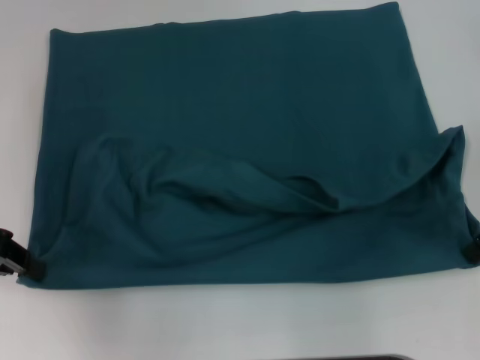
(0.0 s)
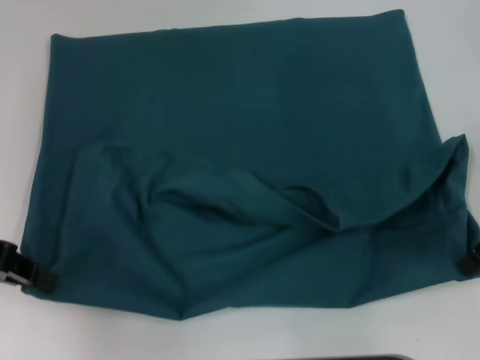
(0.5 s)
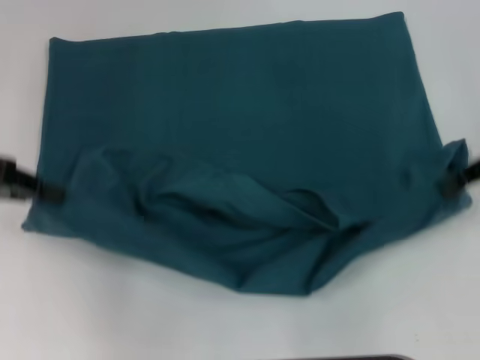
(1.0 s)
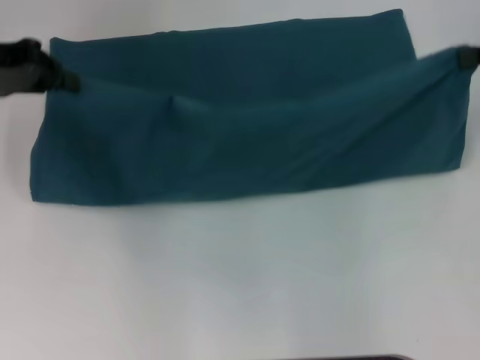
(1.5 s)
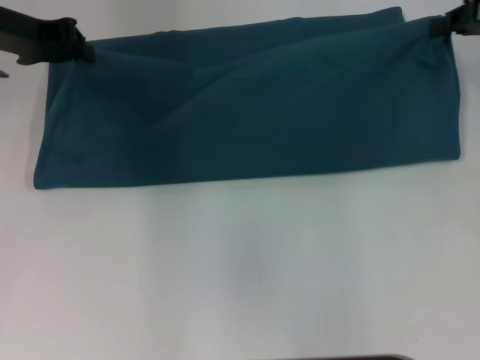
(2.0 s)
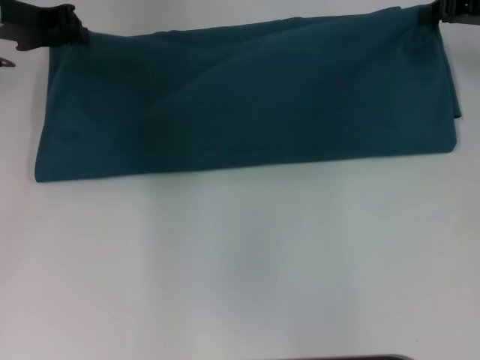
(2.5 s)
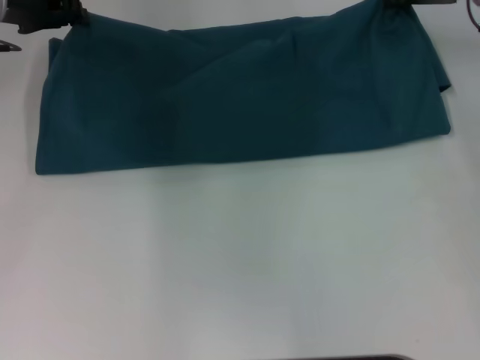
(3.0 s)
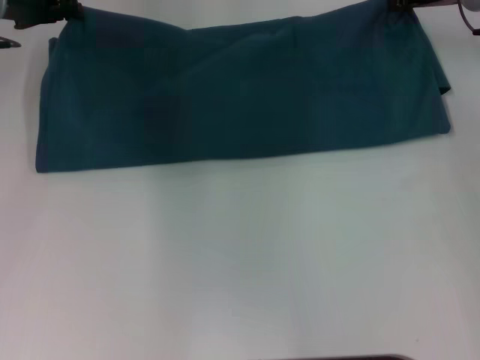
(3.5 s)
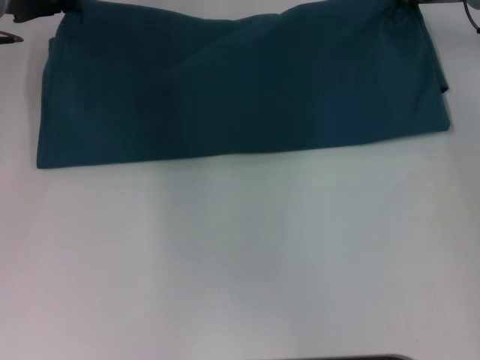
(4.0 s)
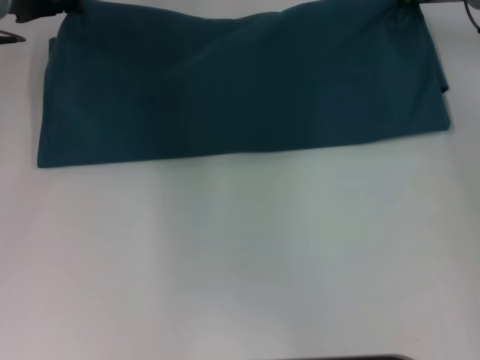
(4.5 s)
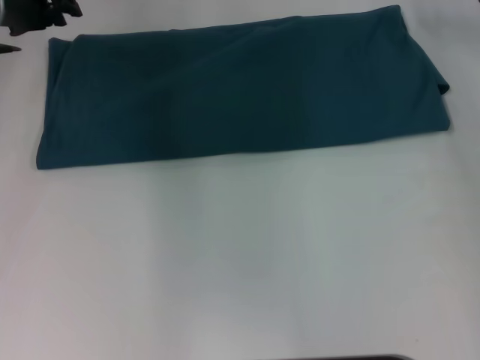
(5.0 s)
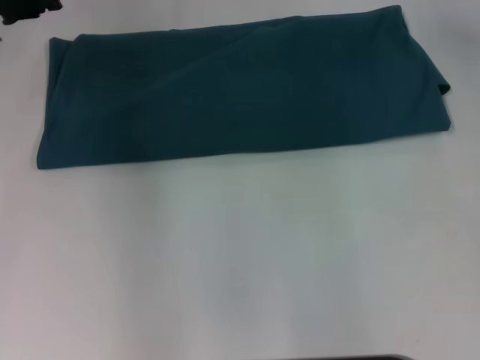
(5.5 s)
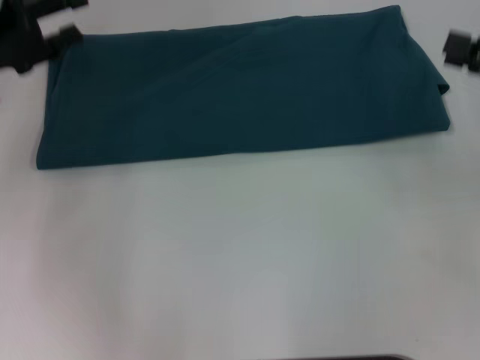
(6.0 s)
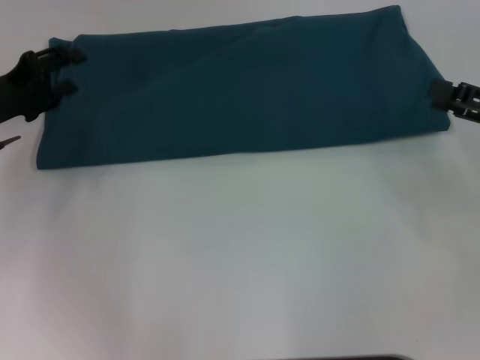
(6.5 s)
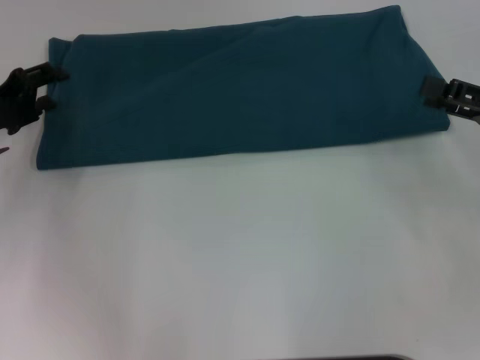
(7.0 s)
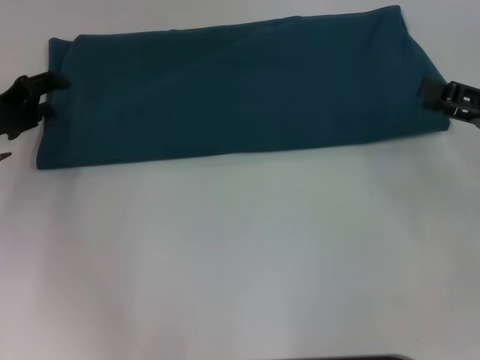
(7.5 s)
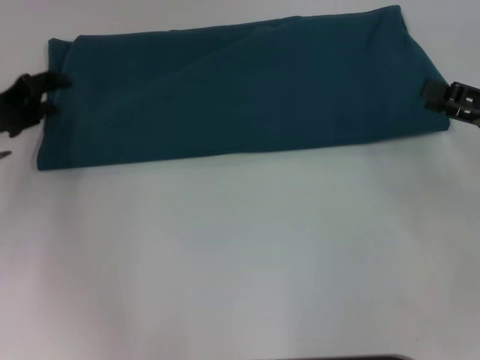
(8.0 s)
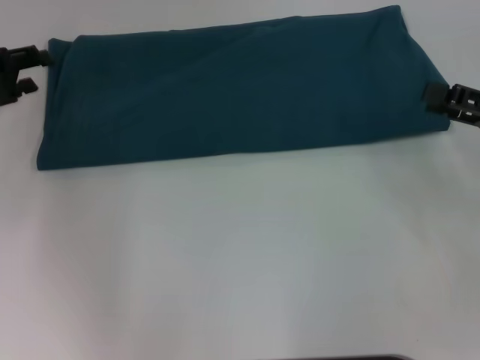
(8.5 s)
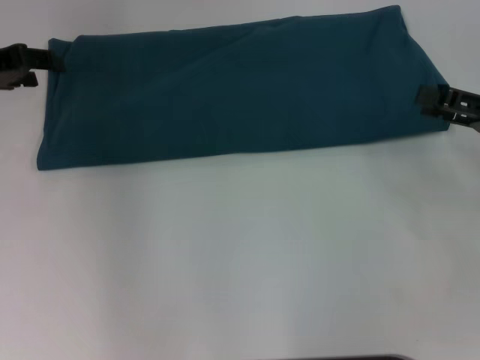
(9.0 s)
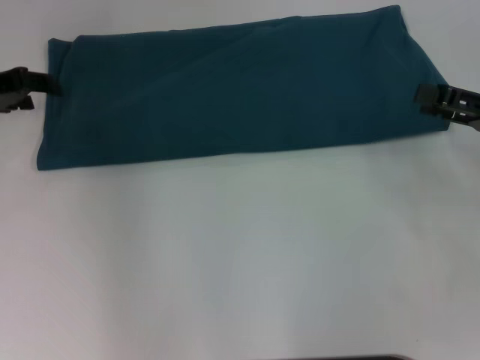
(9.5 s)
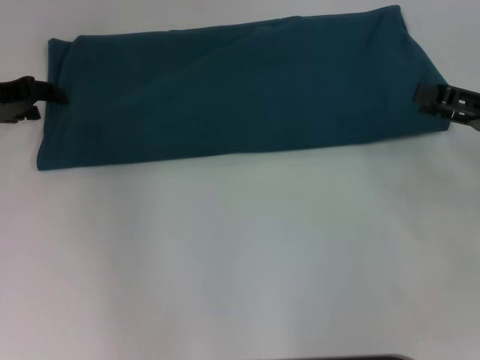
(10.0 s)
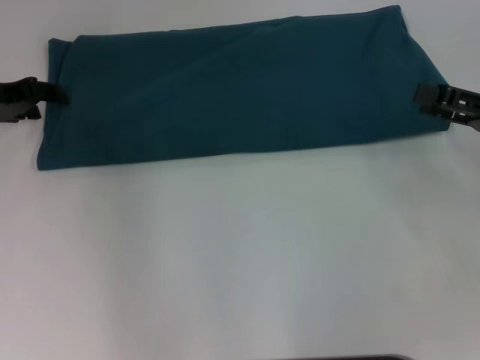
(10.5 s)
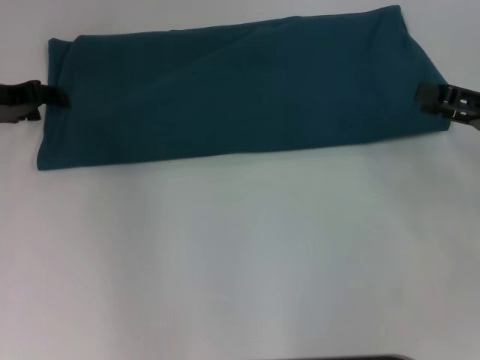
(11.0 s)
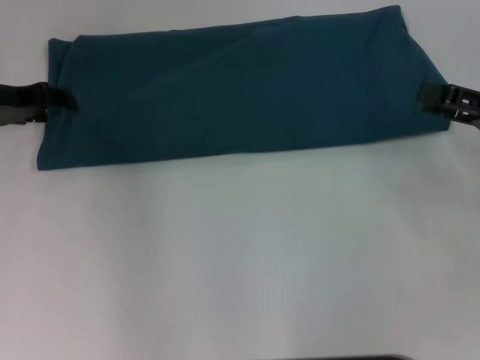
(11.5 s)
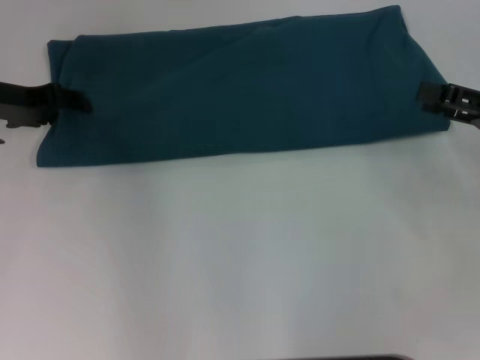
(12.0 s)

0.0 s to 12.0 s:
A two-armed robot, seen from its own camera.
Step, 0.5 to 4.5 s: Fold the clothes to the right.
0.0 to 2.0 s: The left gripper heads forward and to the right, covering about 15 cm. The right gripper heads forward, covering approximately 10 cm.
2.0 to 4.0 s: The right gripper heads to the left and forward, covering some 10 cm.
4.0 to 6.0 s: The right gripper travels backward and to the right by some 20 cm, and opens up. Meanwhile the left gripper travels backward and to the left by approximately 10 cm, and opens.
6.0 to 8.0 s: The left gripper moves downward, approximately 5 cm.
8.0 to 10.0 s: The left gripper moves approximately 5 cm.
10.0 to 12.0 s: The grippers stay close to where they were, moving slightly.

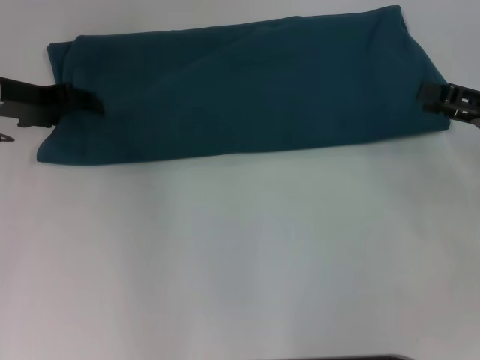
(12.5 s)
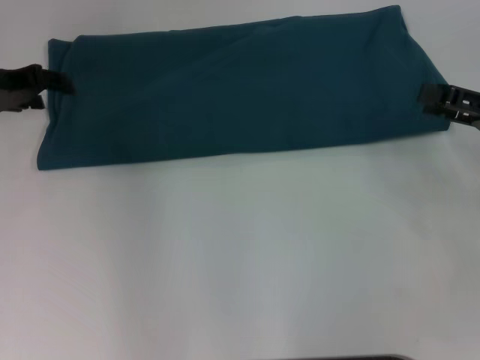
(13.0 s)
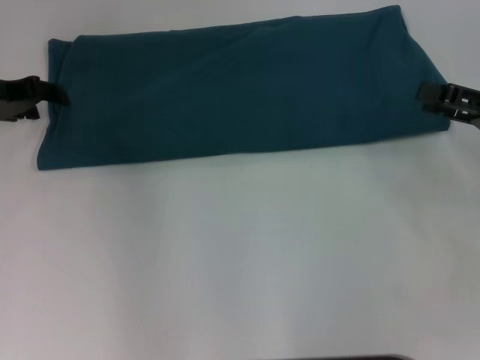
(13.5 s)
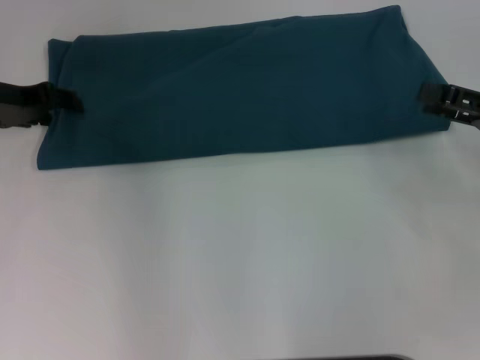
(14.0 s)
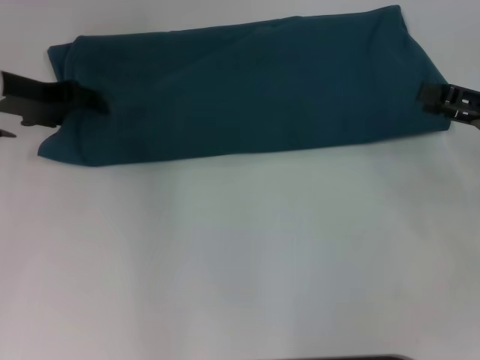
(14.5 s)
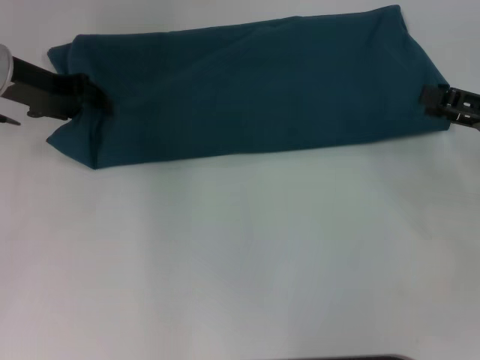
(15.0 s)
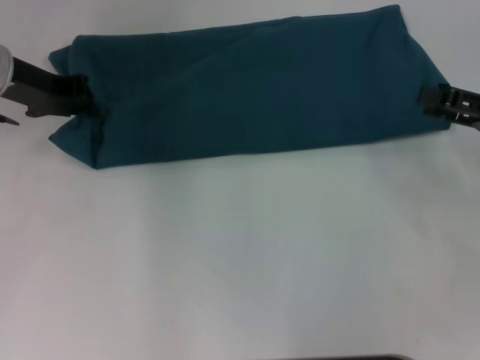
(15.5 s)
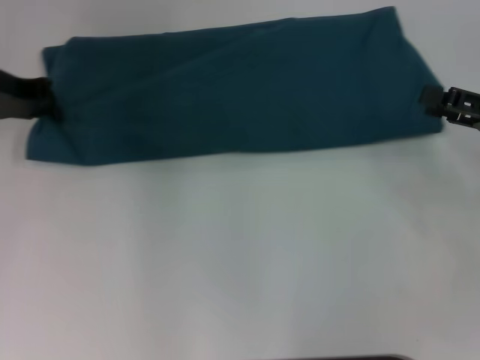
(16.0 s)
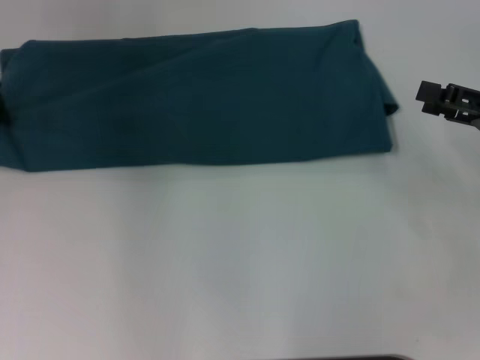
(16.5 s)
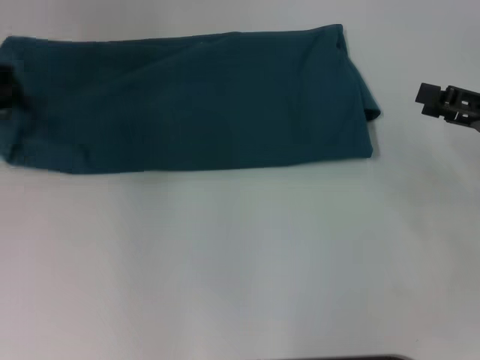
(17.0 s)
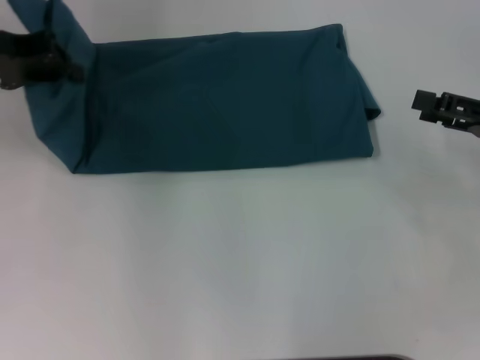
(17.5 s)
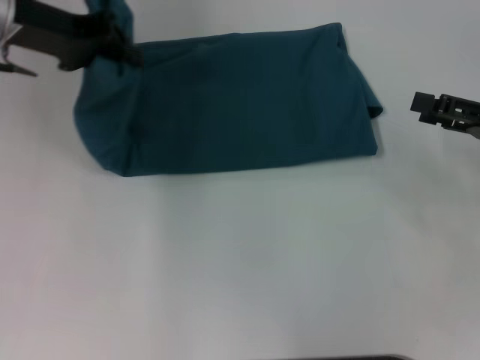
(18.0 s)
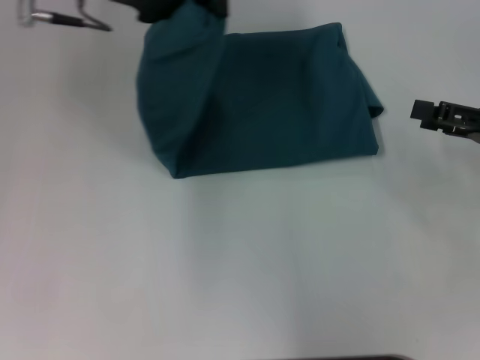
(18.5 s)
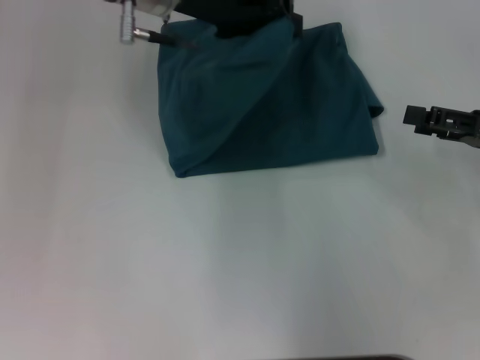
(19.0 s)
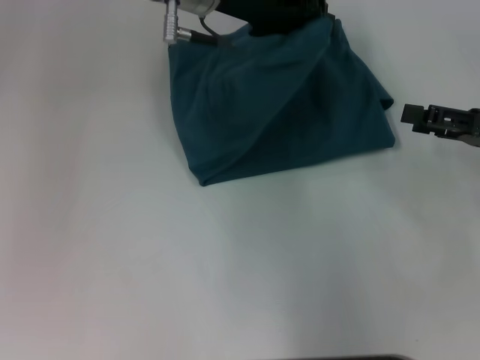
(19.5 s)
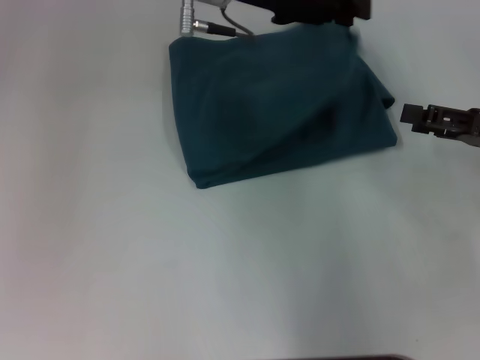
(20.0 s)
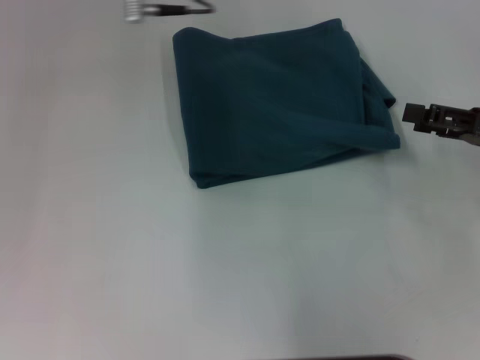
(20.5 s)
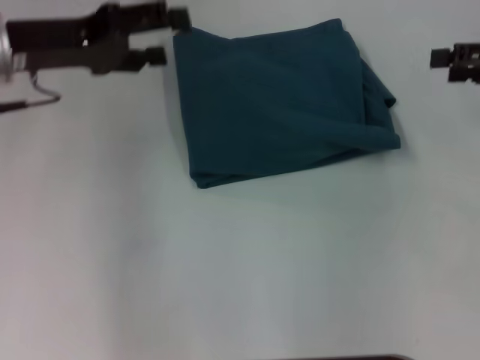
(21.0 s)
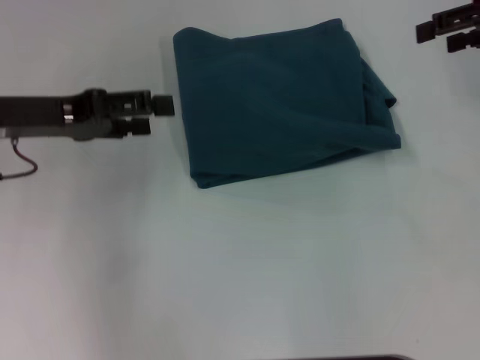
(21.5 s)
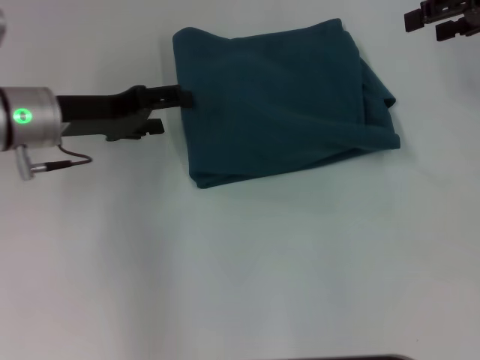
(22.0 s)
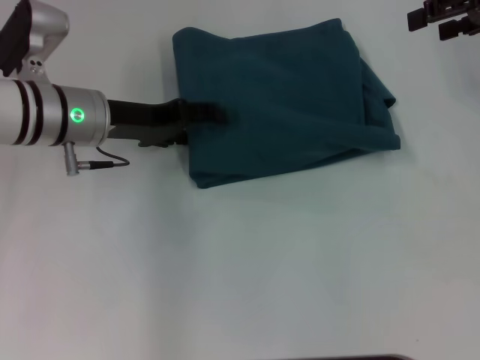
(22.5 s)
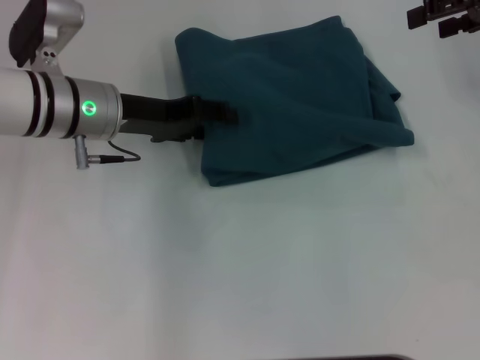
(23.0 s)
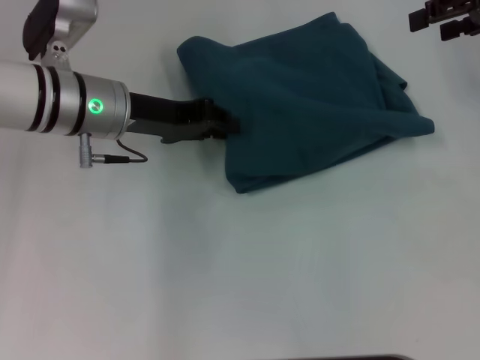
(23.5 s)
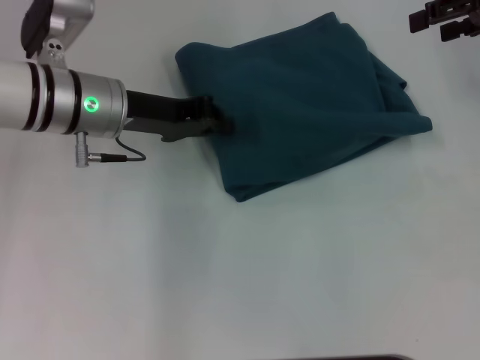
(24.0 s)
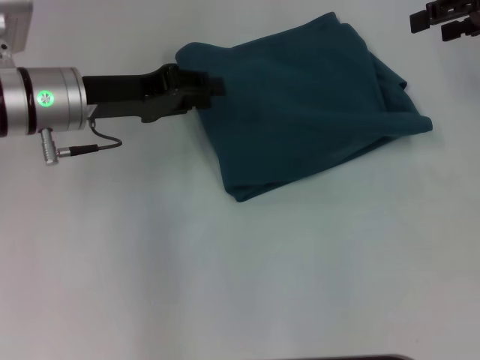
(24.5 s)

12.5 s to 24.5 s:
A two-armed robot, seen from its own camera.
Step, 12.5 to 20.0 s: Fold the clothes to the left.
14.5 to 16.5 s: The left gripper shifts about 5 cm to the left, and closes.
16.5 to 18.5 s: The left gripper moves to the right and upward, some 20 cm.
18.5 to 20.5 s: The left gripper shifts about 5 cm to the right, and opens.
20.5 to 22.5 s: The left gripper is displaced downward and to the left by roughly 15 cm, and opens up. The right gripper goes some 20 cm upward and forward.
22.5 to 24.5 s: The left gripper closes its fingers.

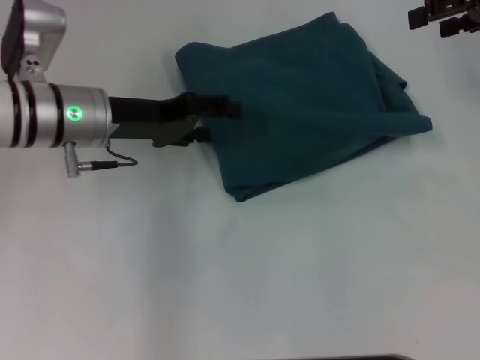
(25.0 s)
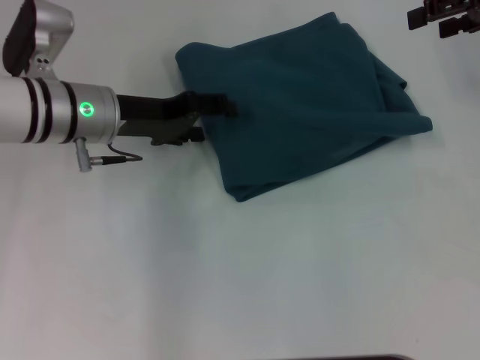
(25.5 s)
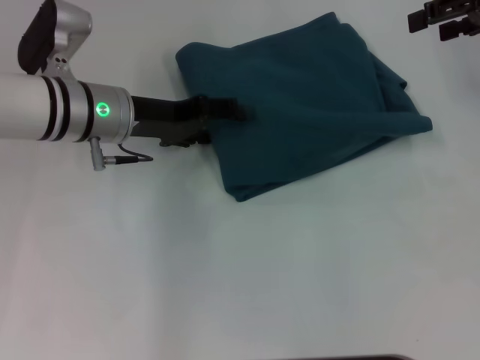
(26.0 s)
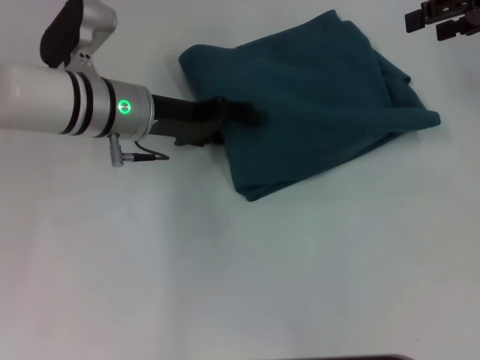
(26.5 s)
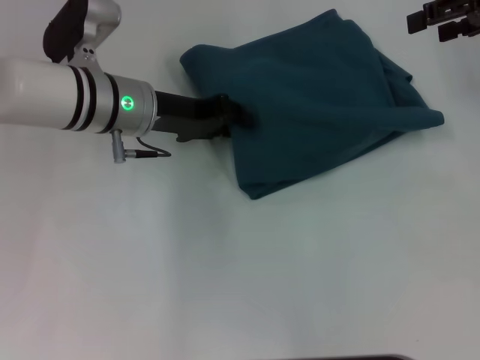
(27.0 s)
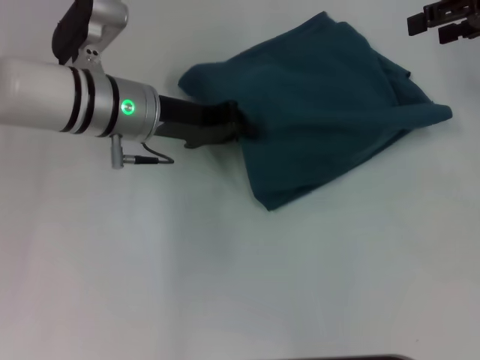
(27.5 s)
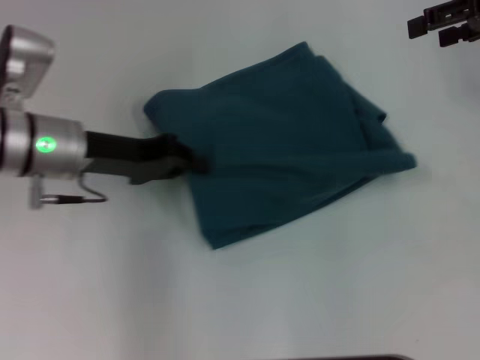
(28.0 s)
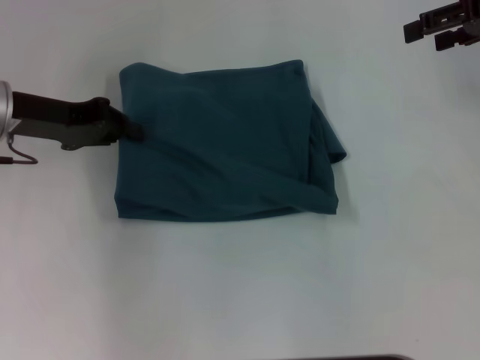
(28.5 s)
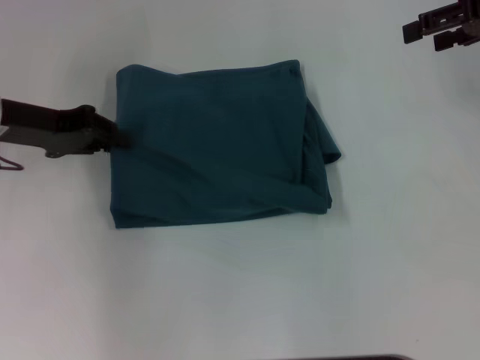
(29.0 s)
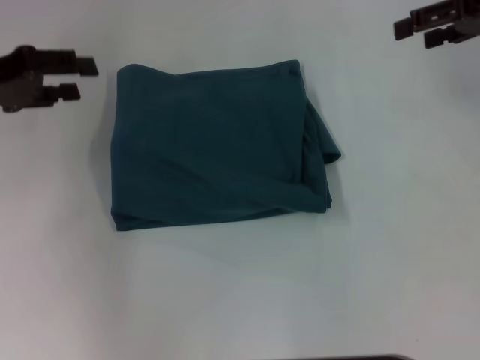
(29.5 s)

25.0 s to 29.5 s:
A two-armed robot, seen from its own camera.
25.0 to 27.0 s: The grippers make only small movements.
27.0 to 29.5 s: The left gripper is displaced to the left by some 20 cm.
